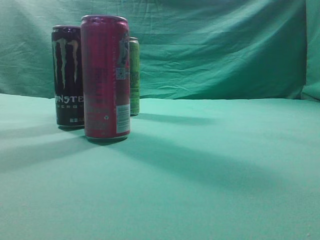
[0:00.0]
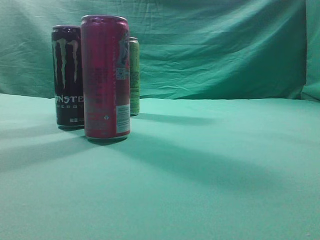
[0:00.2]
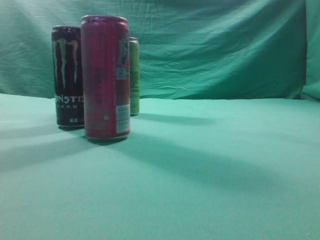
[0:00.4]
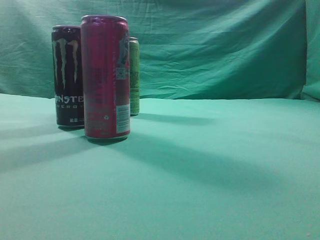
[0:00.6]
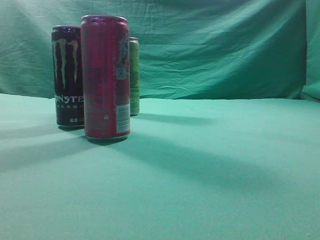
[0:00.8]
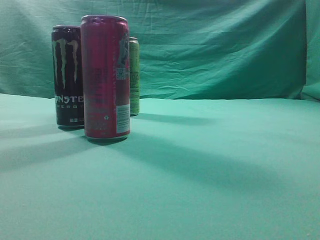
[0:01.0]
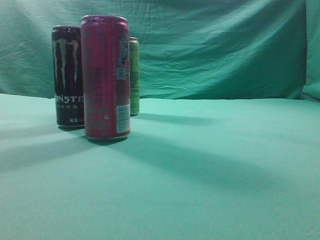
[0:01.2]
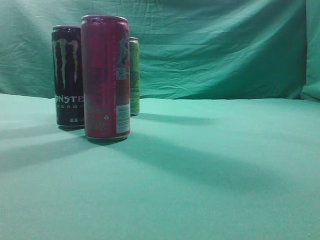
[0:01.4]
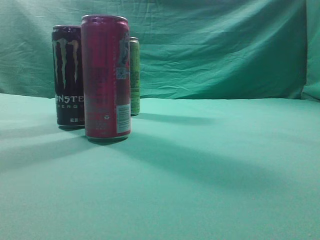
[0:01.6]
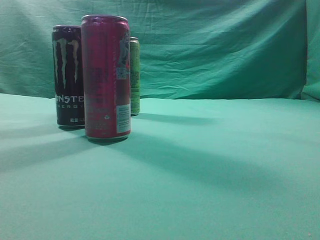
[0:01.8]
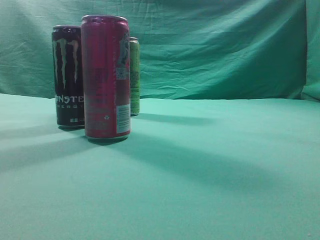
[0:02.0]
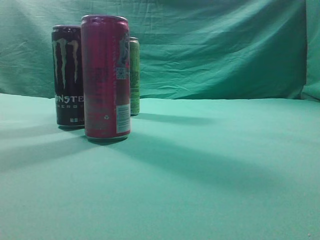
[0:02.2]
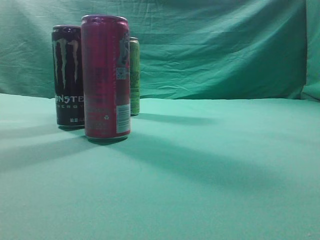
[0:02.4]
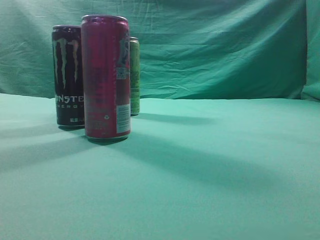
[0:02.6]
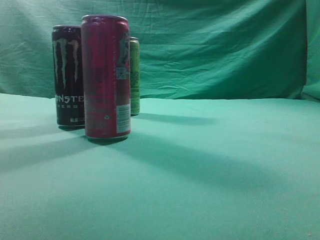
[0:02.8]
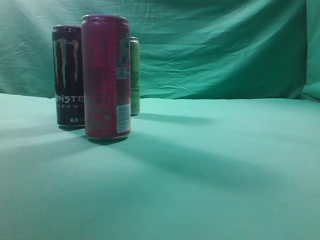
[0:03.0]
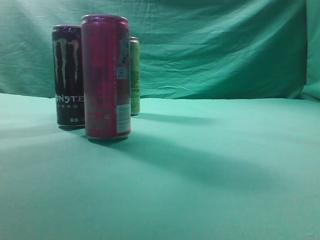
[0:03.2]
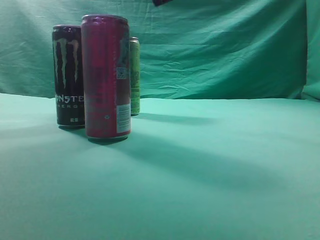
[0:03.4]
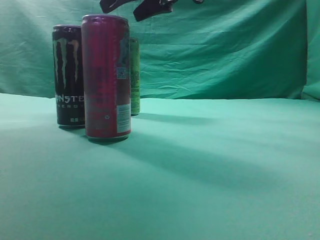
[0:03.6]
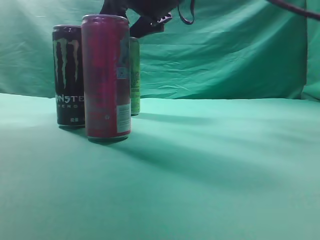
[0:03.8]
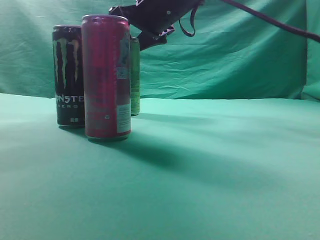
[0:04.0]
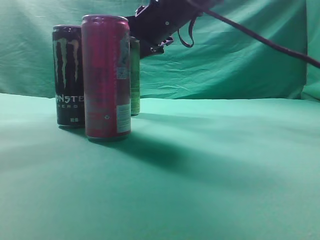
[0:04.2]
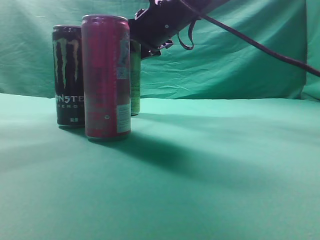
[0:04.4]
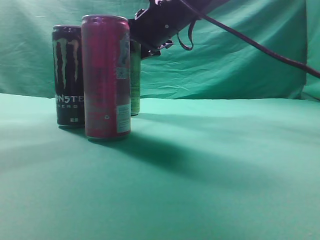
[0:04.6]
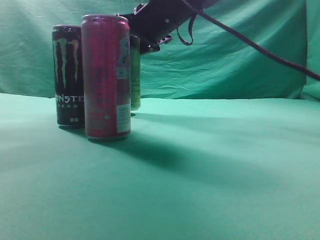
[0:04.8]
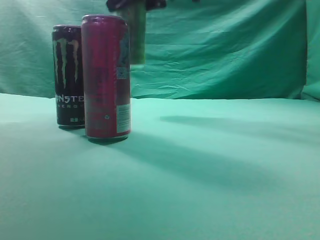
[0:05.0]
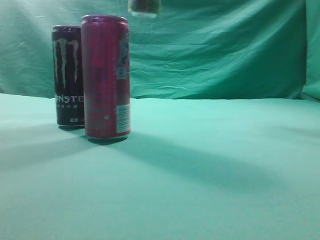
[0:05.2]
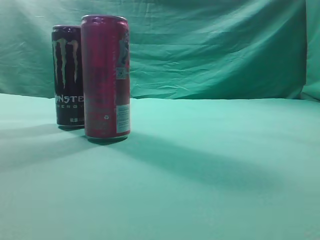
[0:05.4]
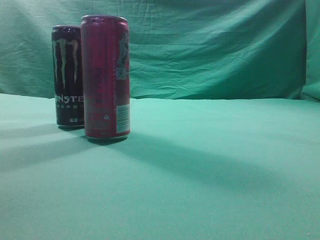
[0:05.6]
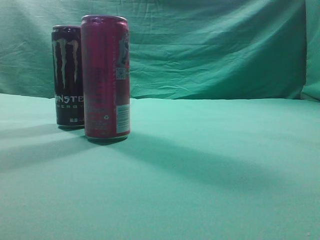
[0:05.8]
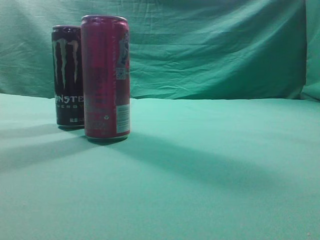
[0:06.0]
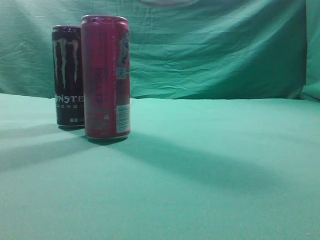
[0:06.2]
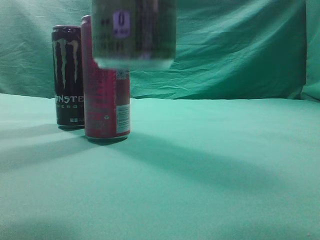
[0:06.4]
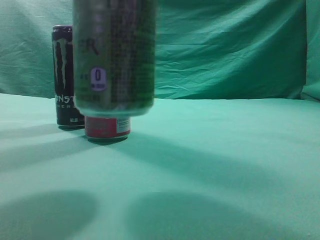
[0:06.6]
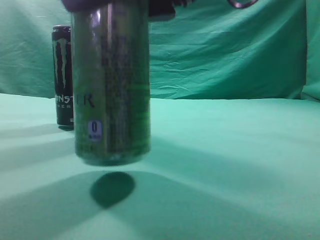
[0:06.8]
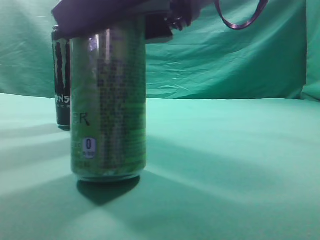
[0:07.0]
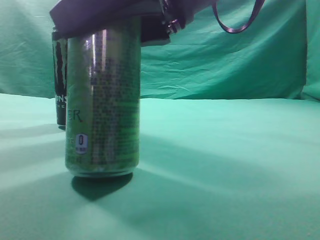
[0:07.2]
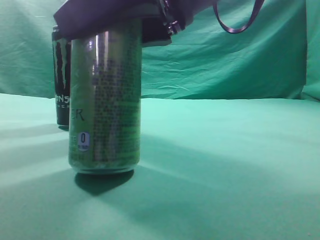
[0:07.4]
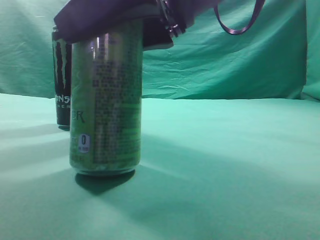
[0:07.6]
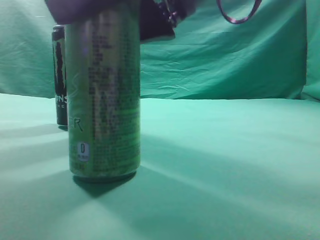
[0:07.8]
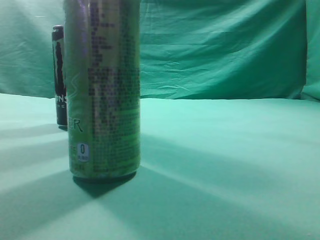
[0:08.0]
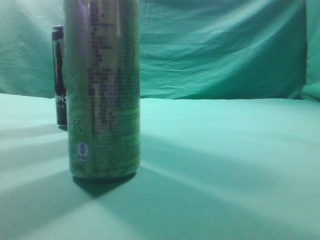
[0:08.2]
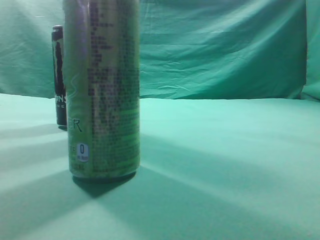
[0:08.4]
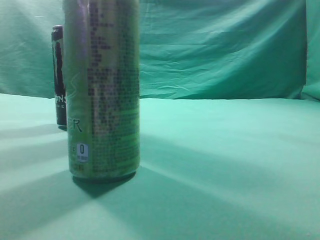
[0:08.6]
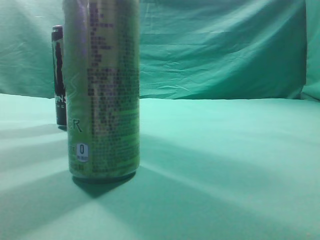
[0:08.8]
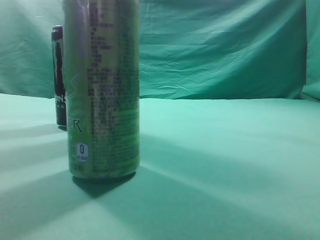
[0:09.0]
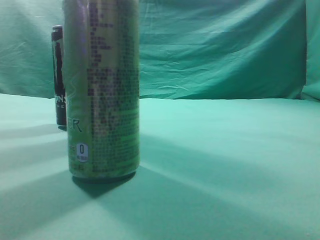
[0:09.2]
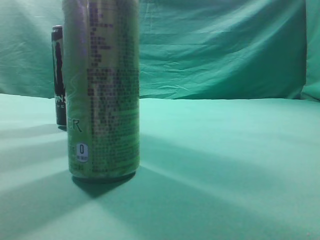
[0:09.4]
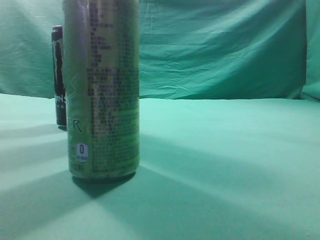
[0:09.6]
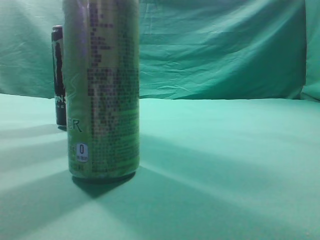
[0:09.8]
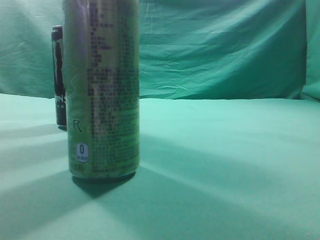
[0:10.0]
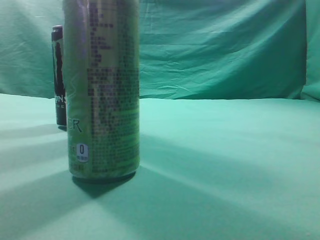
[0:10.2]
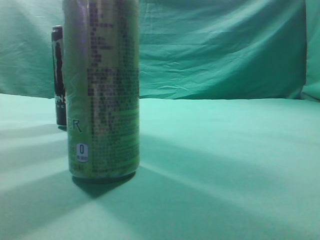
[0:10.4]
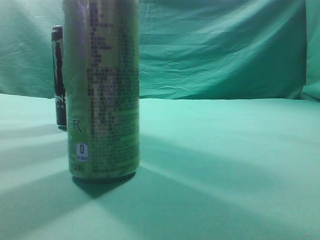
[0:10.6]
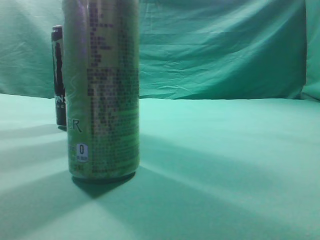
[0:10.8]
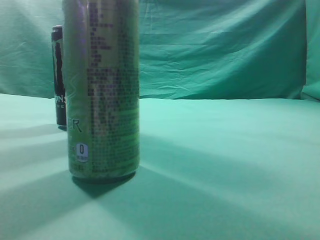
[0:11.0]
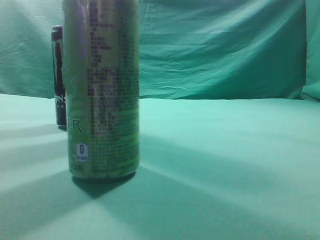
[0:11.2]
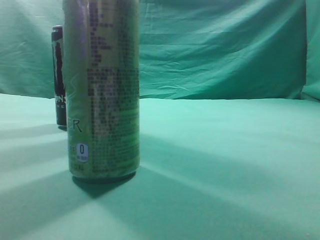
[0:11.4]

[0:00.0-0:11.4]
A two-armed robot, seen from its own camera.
Task of the whole recording: move one drink among three beverages.
Step, 0:00.0 to 0:04.8: Grasp the beverage bottle placed at the back of the desk.
Step, 0:05.0 to 0:08.2: Place the beverage bottle to the front of the table.
0:01.4 to 0:02.8: The right gripper shifts roughly 30 cm forward, upward and to the left.
0:02.8 to 0:04.2: The right gripper travels forward, to the left and downward by about 25 cm, and opens.
0:04.2 to 0:05.6: The right gripper travels upward, backward and to the right by roughly 30 cm.
0:05.6 to 0:07.2: The right gripper goes some 25 cm downward.
0:07.2 to 0:08.6: The right gripper goes roughly 25 cm upward, to the right and backward, and closes.
